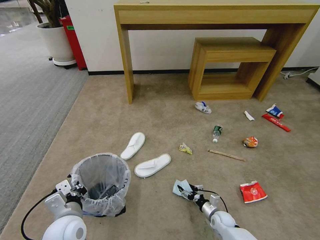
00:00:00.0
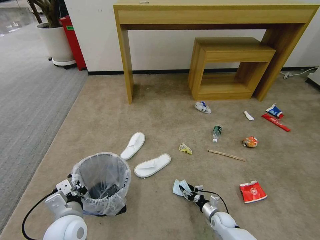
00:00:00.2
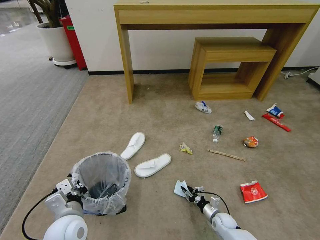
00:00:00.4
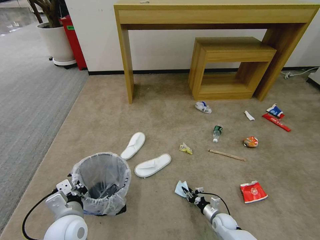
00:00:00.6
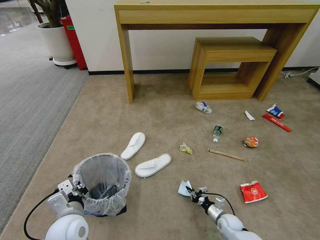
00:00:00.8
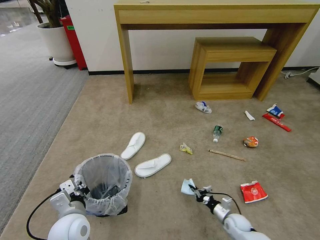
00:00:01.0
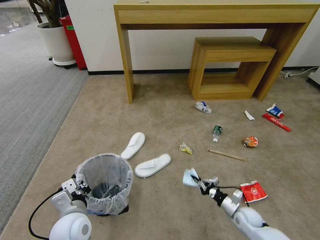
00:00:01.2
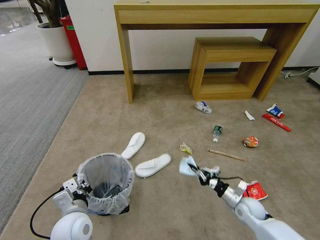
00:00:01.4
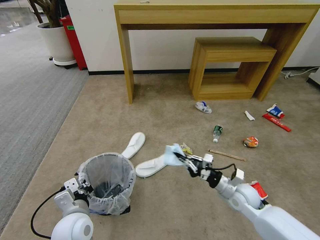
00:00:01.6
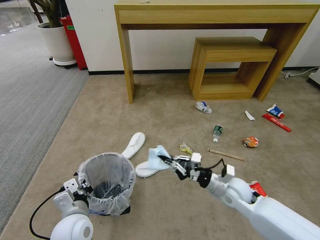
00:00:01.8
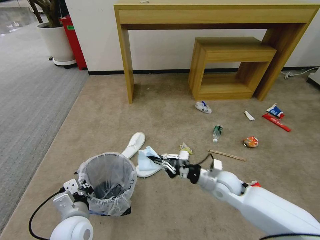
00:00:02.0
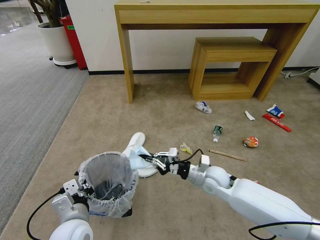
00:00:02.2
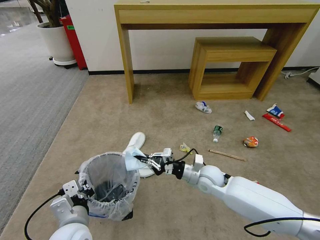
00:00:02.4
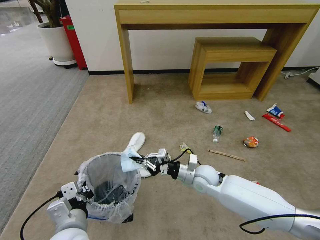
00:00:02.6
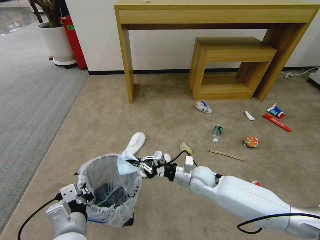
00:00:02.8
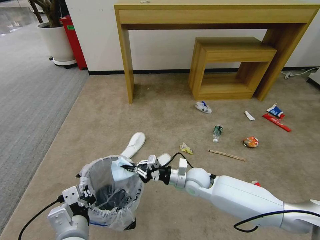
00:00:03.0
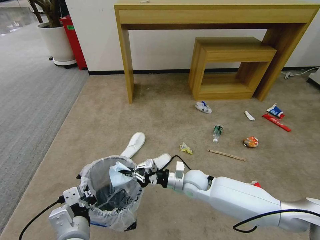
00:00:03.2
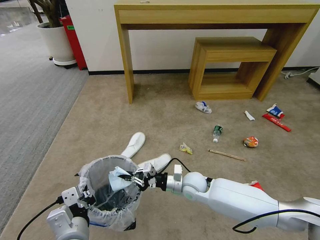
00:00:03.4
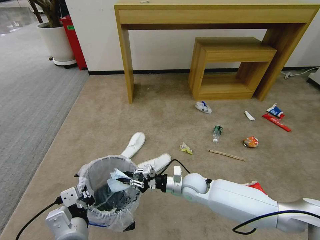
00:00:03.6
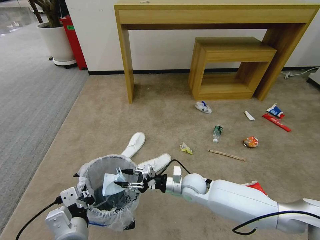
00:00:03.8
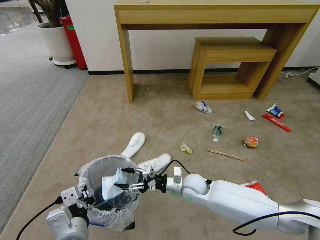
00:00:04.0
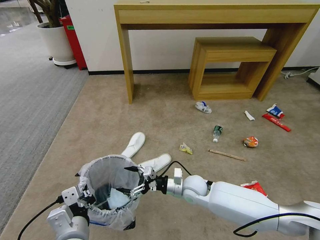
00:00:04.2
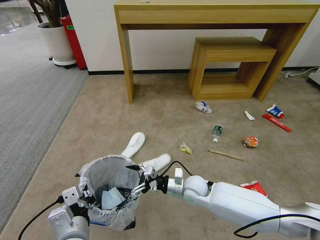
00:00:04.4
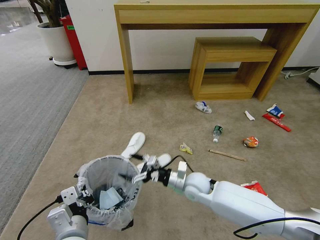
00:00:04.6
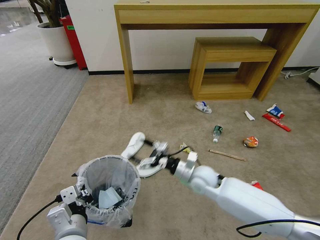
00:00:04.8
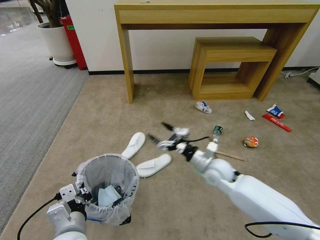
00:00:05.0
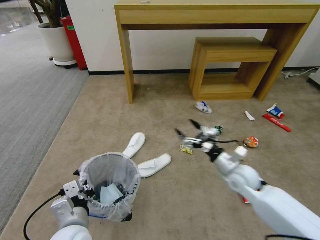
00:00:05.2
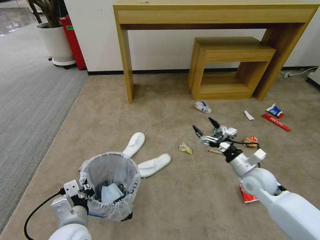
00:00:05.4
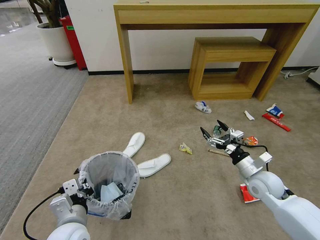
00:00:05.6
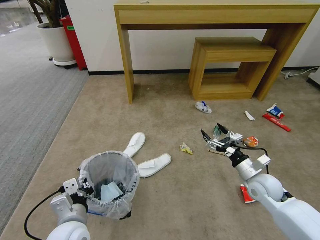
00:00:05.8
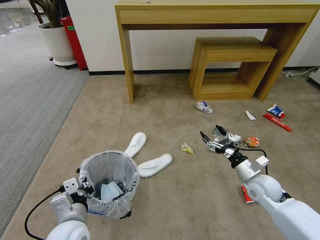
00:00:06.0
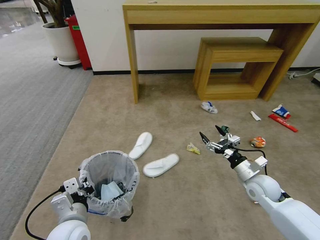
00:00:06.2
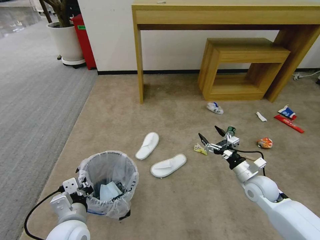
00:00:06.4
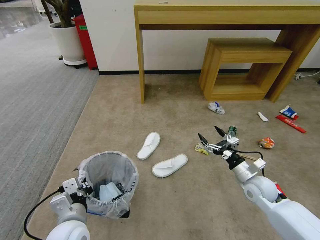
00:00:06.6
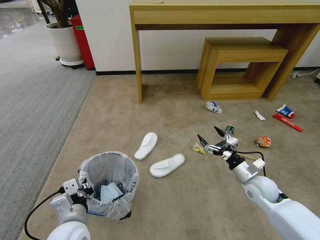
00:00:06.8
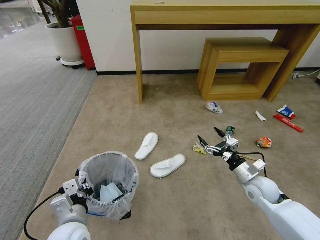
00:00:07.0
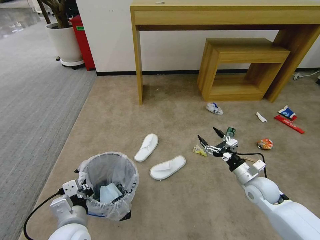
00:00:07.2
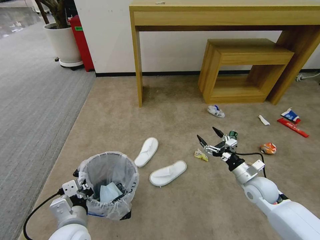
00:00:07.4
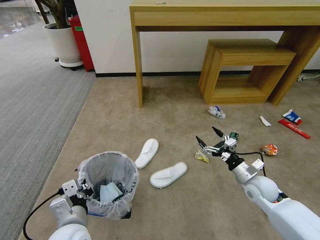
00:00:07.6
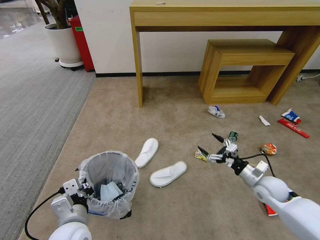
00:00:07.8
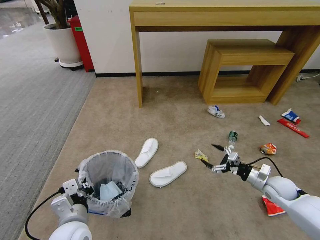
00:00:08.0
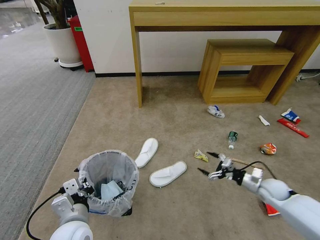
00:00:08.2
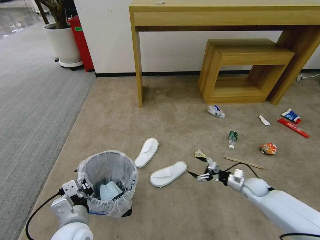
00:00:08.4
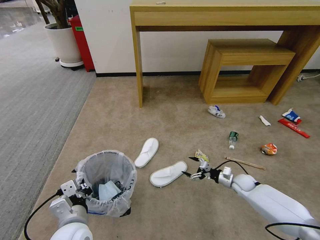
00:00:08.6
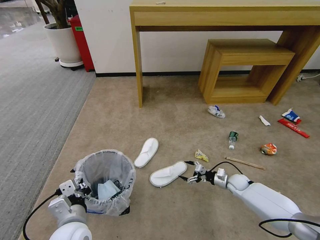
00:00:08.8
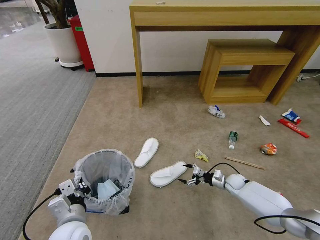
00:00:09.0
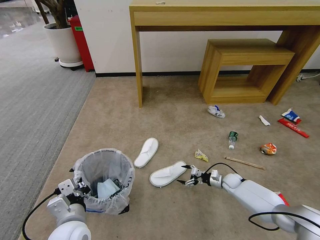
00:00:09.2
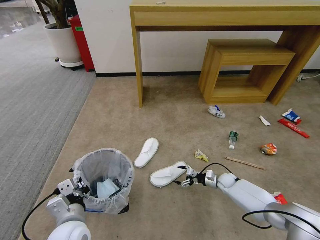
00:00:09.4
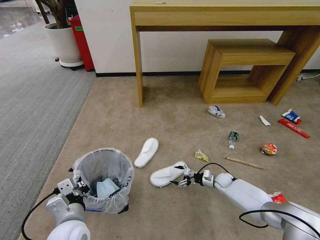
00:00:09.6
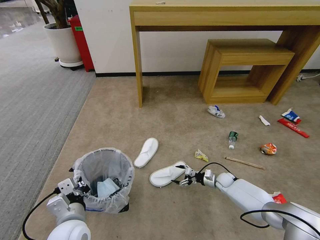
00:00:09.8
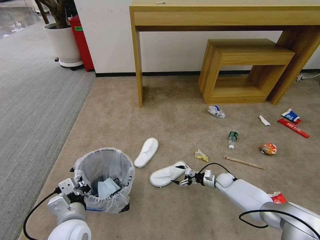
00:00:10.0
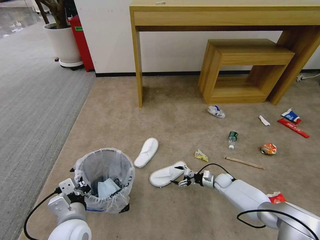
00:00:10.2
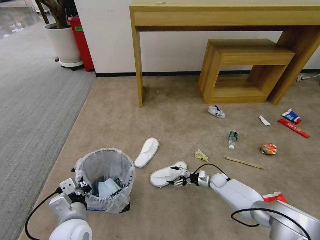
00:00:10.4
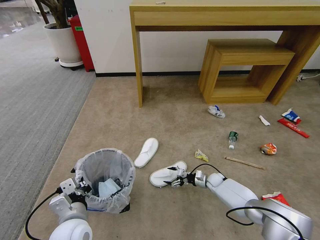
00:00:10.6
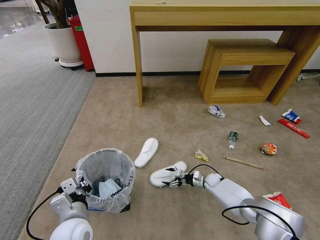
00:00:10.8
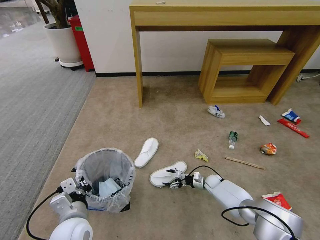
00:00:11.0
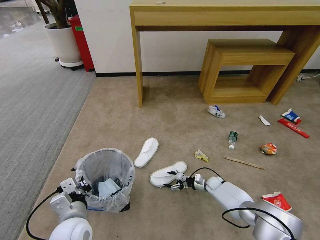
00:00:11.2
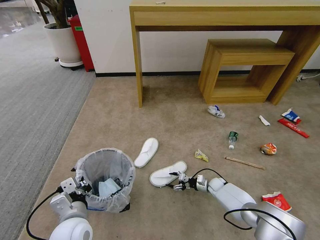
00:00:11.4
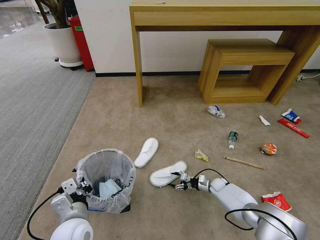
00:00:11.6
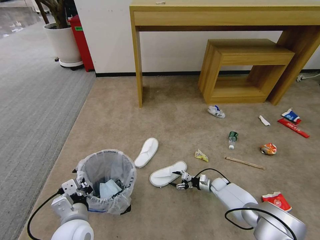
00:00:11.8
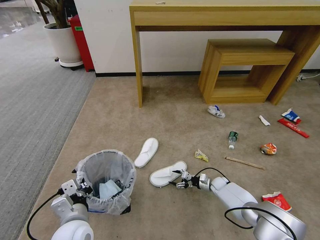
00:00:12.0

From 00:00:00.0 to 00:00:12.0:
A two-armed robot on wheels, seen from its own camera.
Task of the whole recording: Pick up the trash bin and place the garbage on the floor into it.
From 00:00:00.0 to 00:00:01.6: The right gripper moves upward, roughly 25 cm, and closes up.
From 00:00:01.6 to 00:00:03.0: The right gripper heads to the left, covering approximately 15 cm; the left gripper moves backward and upward, about 10 cm.
From 00:00:03.0 to 00:00:04.4: The right gripper opens.
From 00:00:04.4 to 00:00:06.0: The right gripper shifts approximately 20 cm to the right; the left gripper changes place by roughly 5 cm.
From 00:00:07.6 to 00:00:09.0: The right gripper shifts some 20 cm downward and forward.
From 00:00:09.0 to 00:00:10.4: The right gripper goes roughly 5 cm to the left.
From 00:00:10.4 to 00:00:12.0: The grippers stay close to where they were, moving slightly.

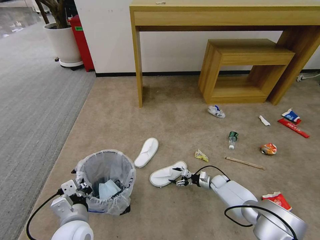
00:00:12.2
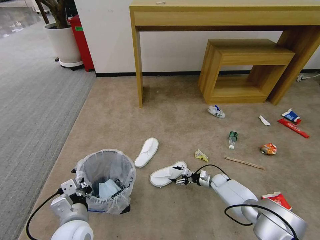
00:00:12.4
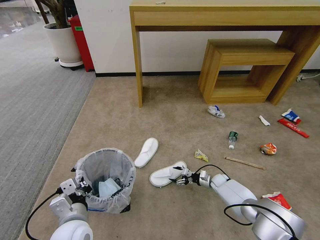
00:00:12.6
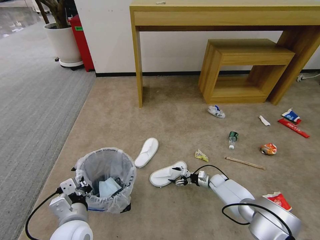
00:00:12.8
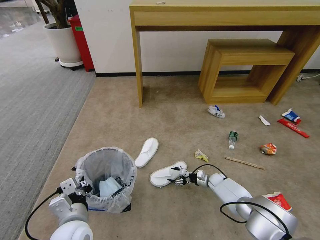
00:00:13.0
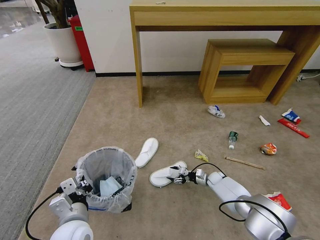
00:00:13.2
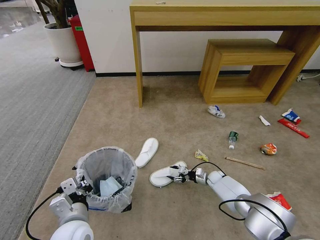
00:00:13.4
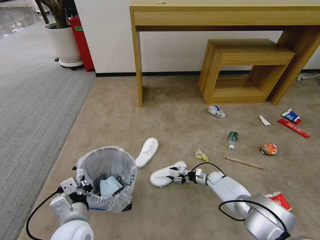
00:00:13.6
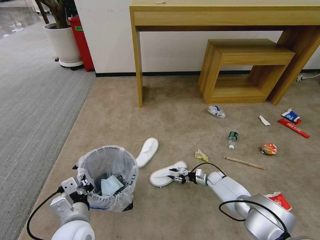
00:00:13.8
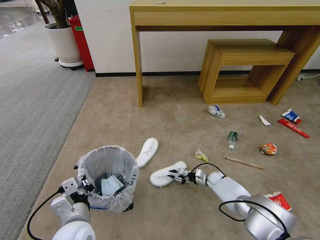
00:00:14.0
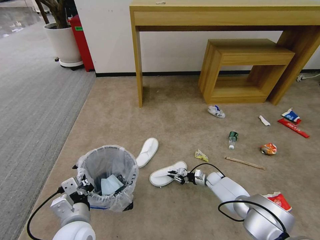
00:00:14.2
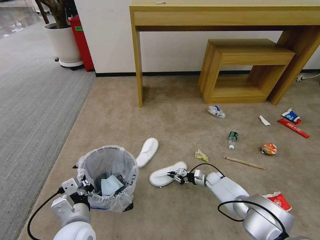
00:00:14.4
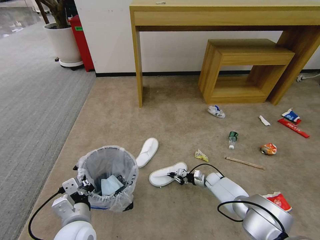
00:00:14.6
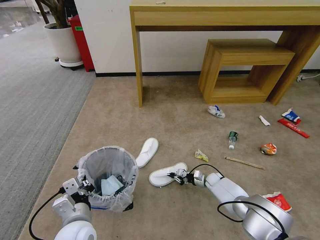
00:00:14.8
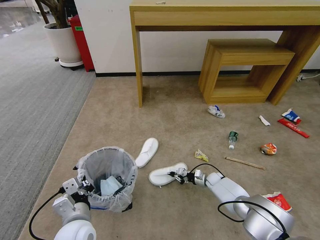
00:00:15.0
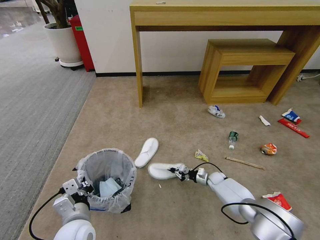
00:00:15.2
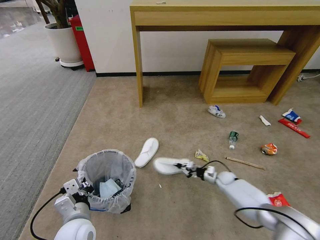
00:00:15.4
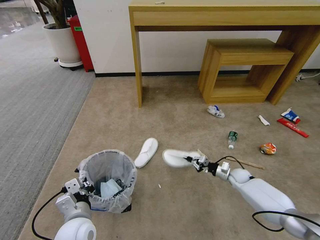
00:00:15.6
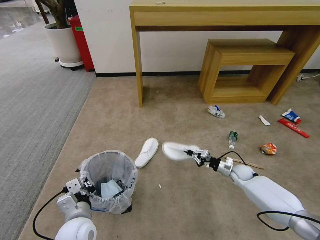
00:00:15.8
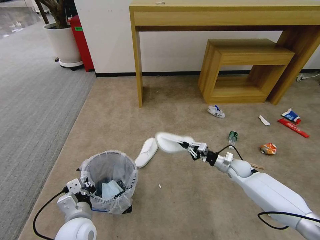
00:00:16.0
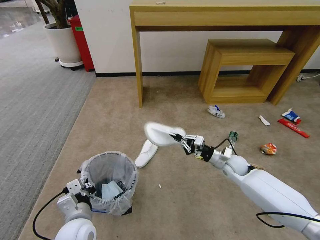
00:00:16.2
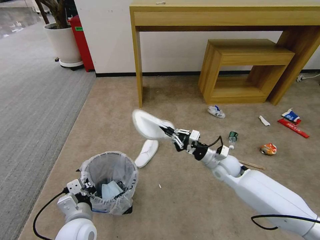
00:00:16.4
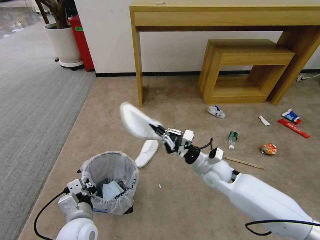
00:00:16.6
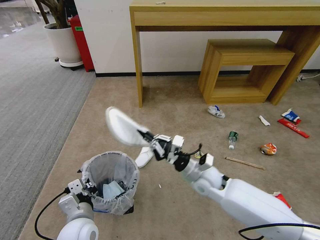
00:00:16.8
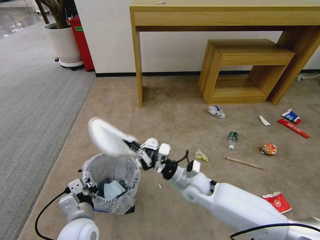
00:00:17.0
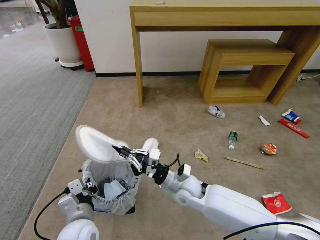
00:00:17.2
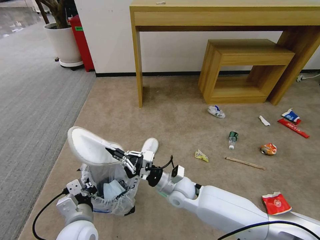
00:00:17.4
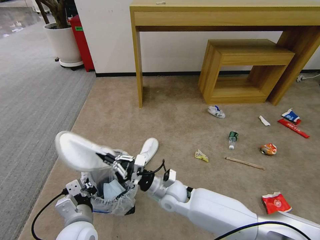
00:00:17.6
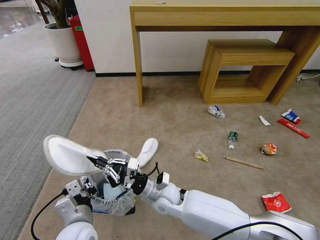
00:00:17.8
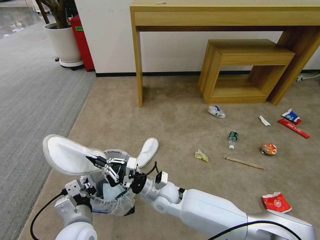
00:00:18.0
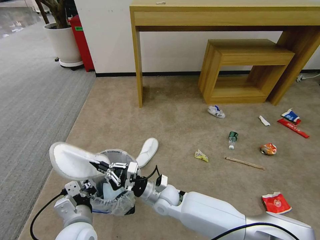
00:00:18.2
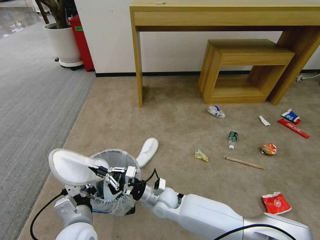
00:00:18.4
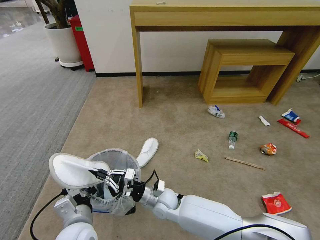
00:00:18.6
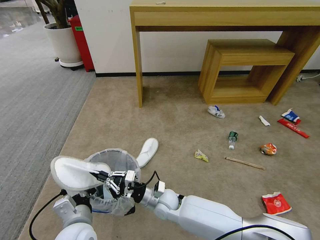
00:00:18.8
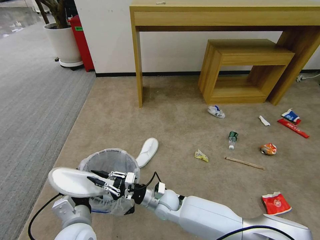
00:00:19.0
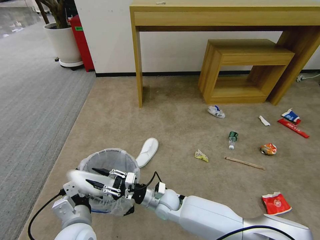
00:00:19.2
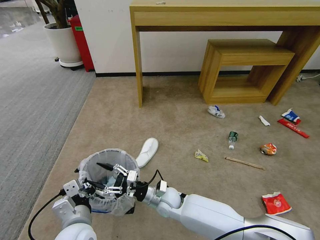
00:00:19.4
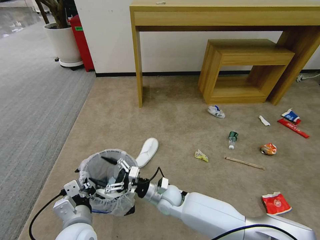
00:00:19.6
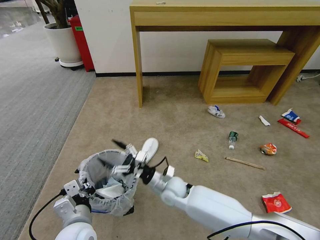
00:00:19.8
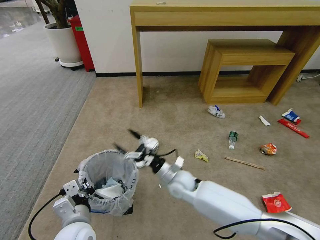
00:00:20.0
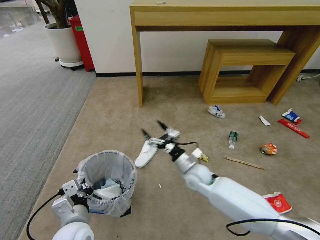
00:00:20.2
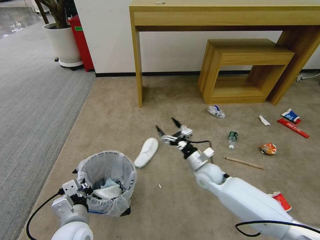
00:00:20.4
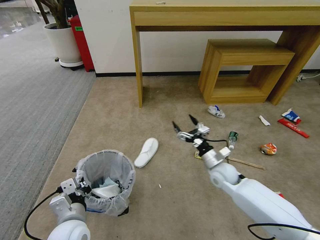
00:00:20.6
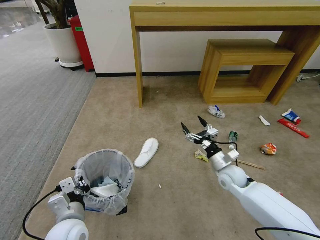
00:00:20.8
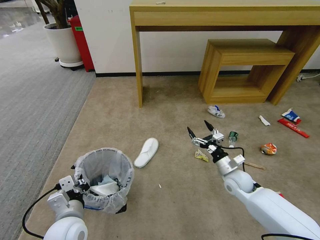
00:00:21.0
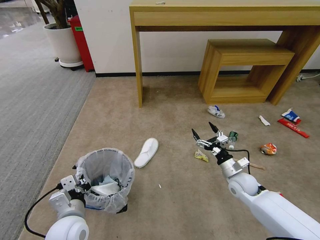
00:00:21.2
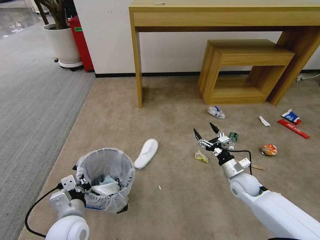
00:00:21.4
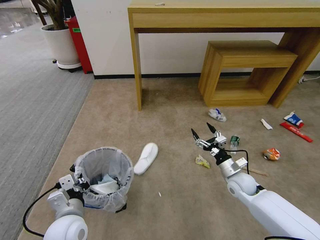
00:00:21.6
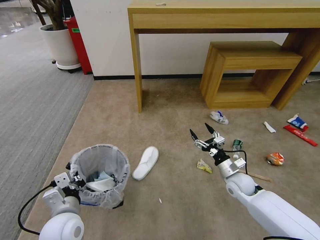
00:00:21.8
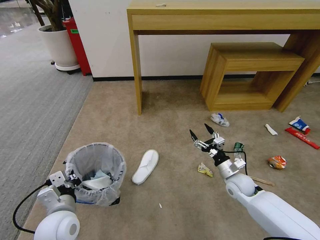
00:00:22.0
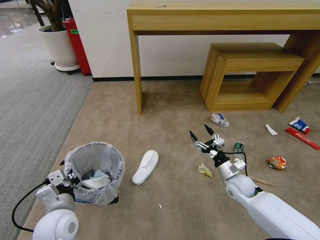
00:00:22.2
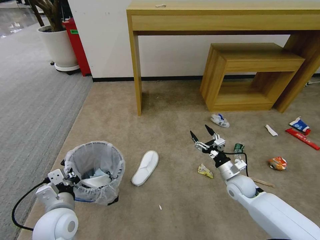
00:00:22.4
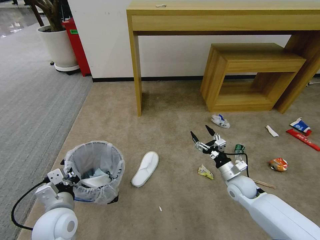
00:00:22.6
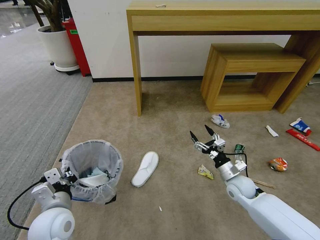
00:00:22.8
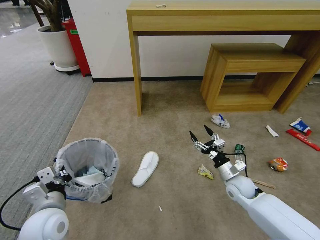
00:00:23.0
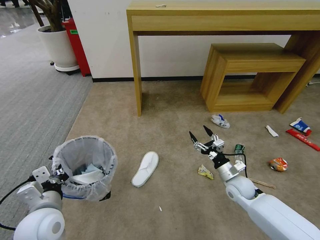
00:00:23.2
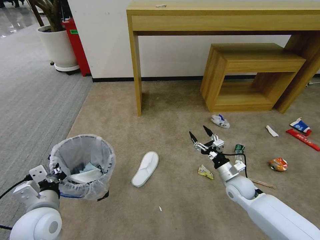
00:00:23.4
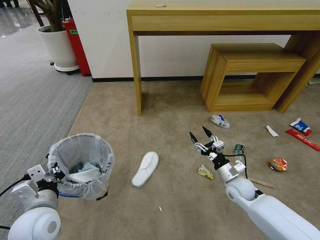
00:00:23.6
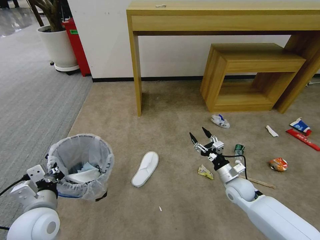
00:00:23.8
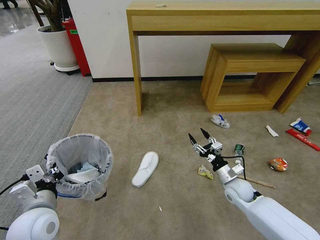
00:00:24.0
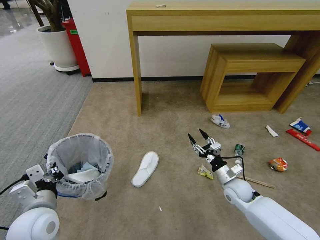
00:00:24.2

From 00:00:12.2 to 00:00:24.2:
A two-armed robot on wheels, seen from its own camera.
Task of the whole recording: Pick up the trash bin and place the garbage on the floor into it.
From 00:00:12.2 to 00:00:13.8: The right gripper closes up.
From 00:00:13.8 to 00:00:15.2: The right gripper closes up.
From 00:00:15.2 to 00:00:16.6: The right gripper shifts some 30 cm upward and to the left.
From 00:00:16.6 to 00:00:18.2: The right gripper travels to the left and downward by approximately 20 cm.
From 00:00:18.2 to 00:00:19.8: The right gripper opens up.
From 00:00:19.8 to 00:00:21.2: The right gripper is displaced to the right by about 25 cm.
From 00:00:22.6 to 00:00:24.2: The grippers stay close to where they were, moving slightly.
